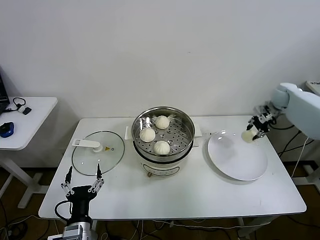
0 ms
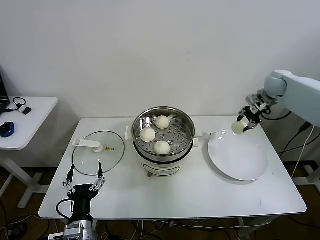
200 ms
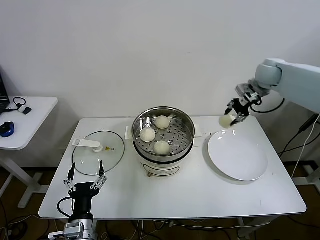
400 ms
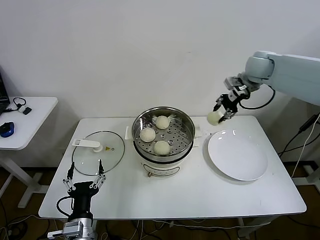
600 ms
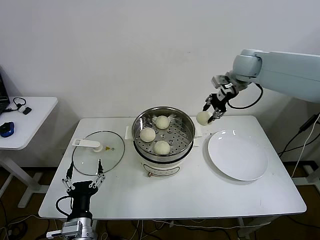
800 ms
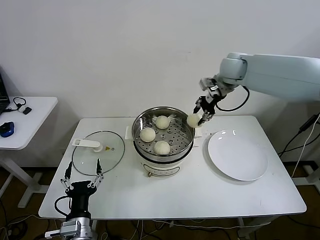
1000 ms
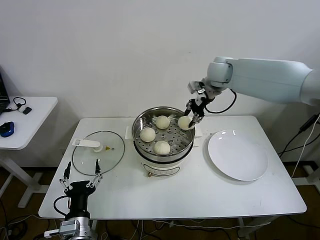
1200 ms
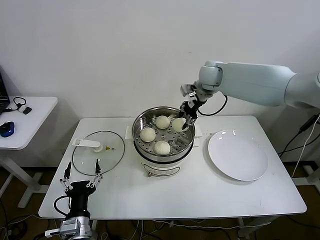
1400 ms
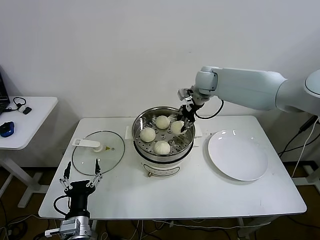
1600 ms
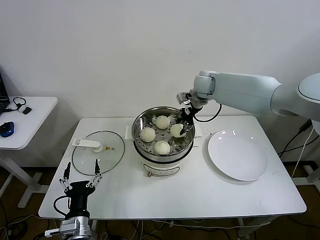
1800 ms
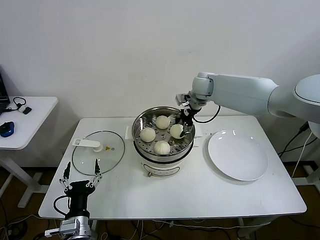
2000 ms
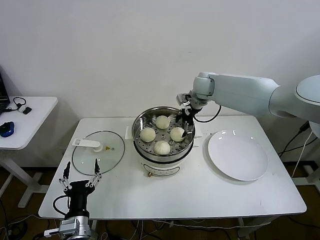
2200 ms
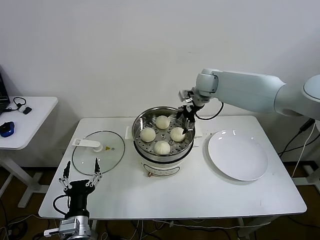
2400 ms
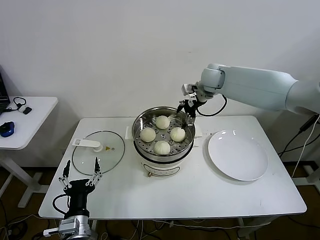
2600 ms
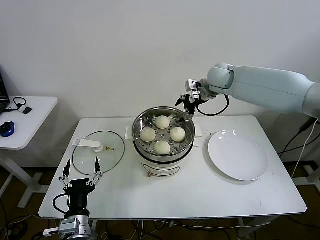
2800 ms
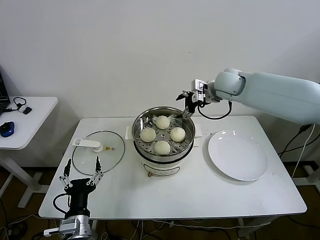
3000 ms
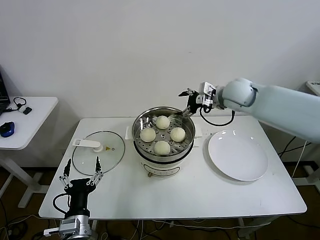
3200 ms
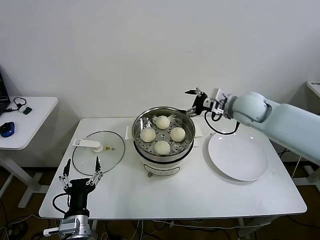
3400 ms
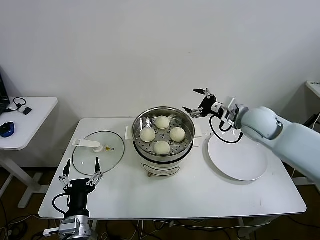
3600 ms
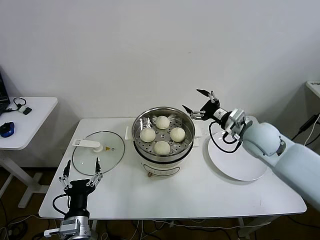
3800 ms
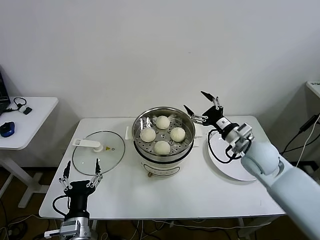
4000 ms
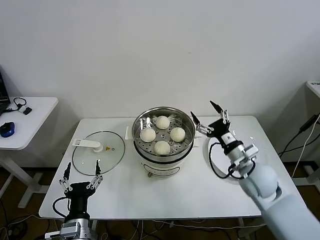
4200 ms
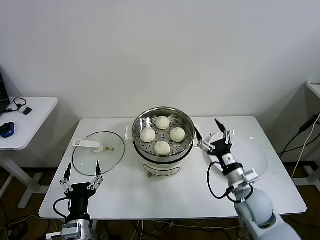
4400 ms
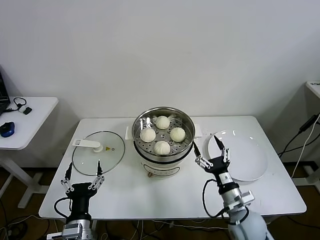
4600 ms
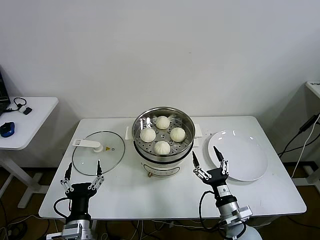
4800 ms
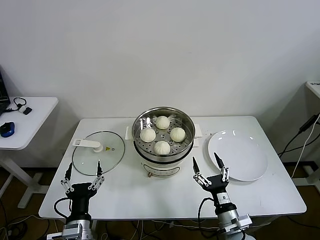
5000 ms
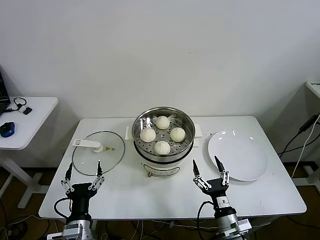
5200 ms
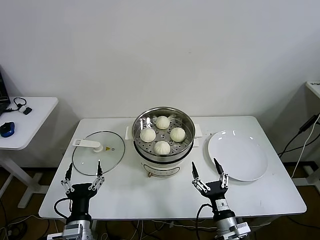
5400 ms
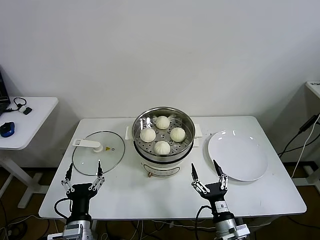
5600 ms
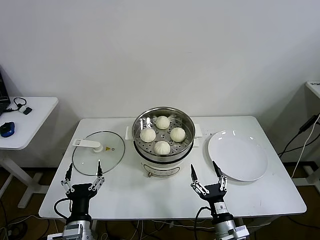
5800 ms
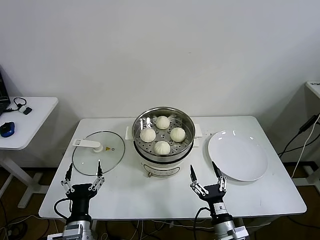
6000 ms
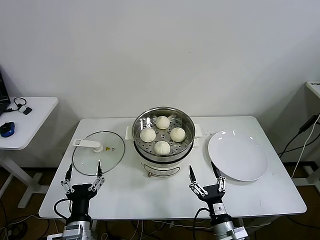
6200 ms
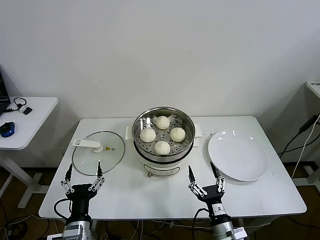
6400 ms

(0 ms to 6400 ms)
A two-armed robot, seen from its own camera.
Step, 0 ms - 2400 ms: Place the baozi on the steamer with right gripper.
0 ms - 1600 ms: The right gripper travels to the left by about 30 cm.
1600 ms - 3200 ms: The right gripper heads backward and to the right, covering some 10 cm, and opens.
3200 ms - 4800 ms: The right gripper heads backward and downward, covering roughly 40 cm.
4800 ms - 6400 ms: The right gripper moves backward, about 5 cm.

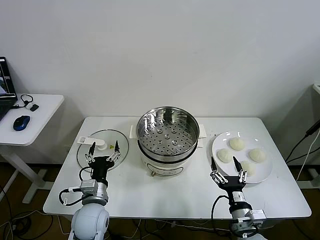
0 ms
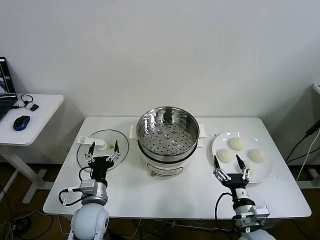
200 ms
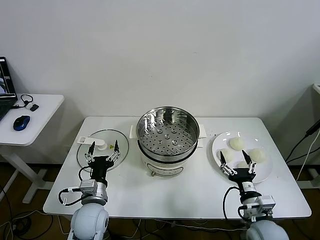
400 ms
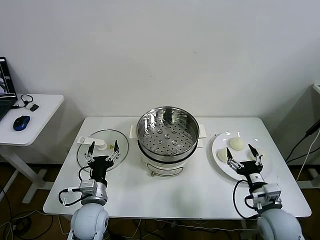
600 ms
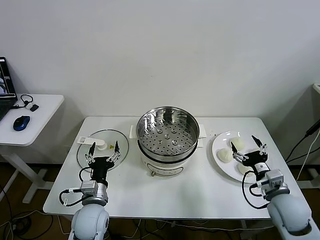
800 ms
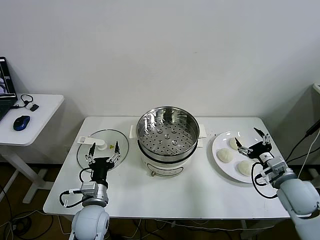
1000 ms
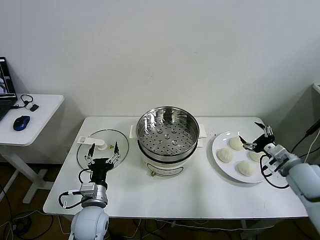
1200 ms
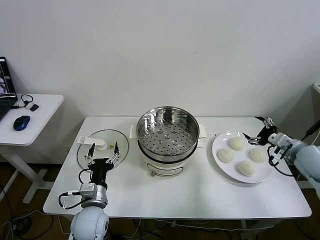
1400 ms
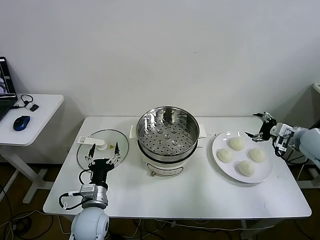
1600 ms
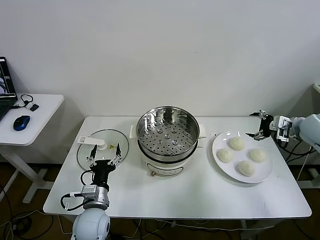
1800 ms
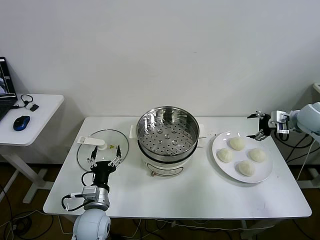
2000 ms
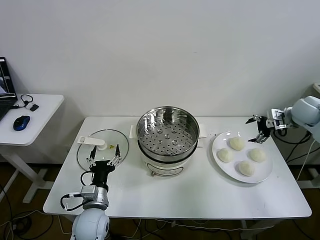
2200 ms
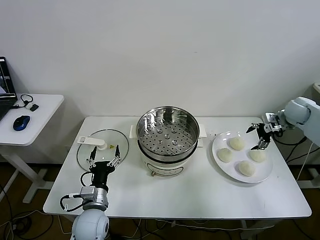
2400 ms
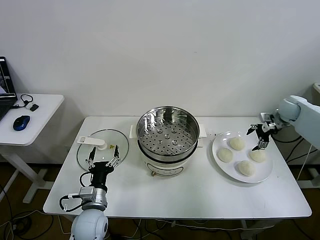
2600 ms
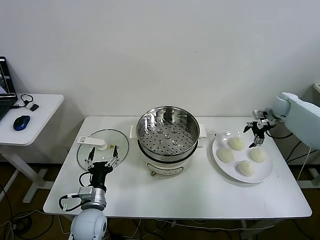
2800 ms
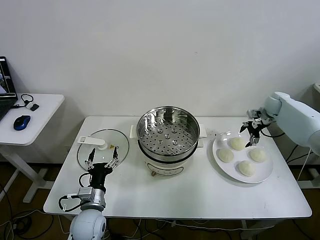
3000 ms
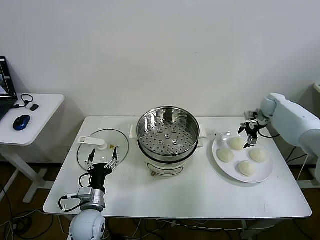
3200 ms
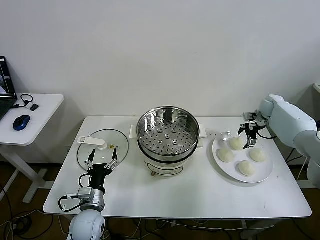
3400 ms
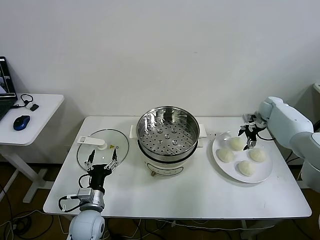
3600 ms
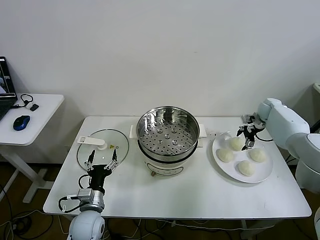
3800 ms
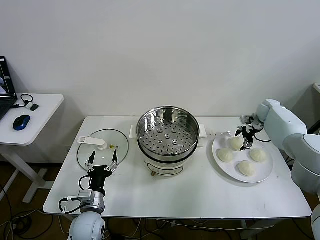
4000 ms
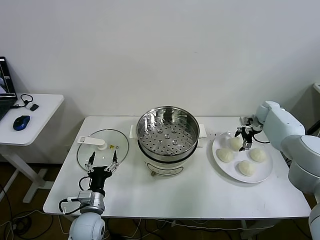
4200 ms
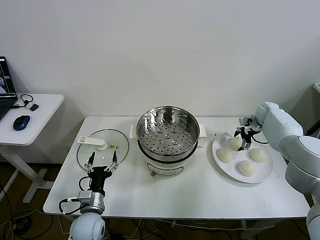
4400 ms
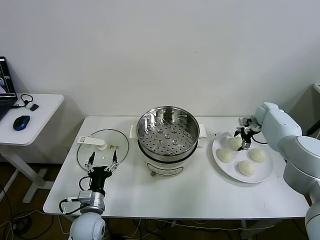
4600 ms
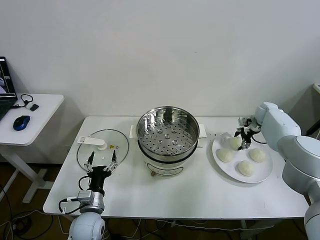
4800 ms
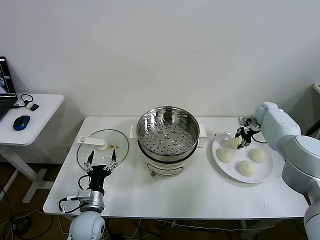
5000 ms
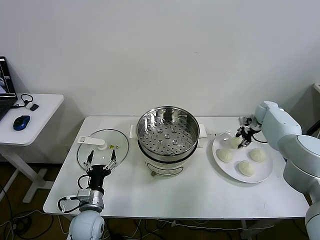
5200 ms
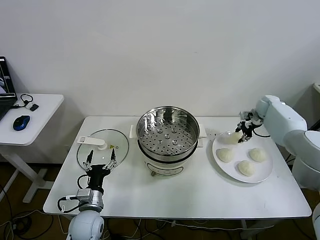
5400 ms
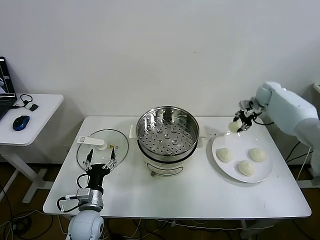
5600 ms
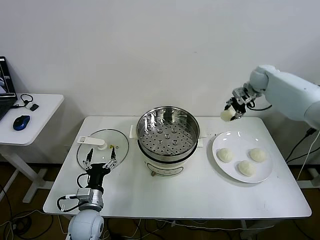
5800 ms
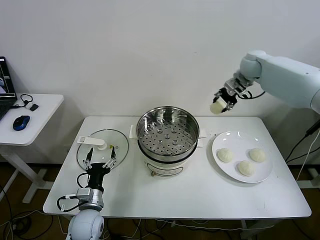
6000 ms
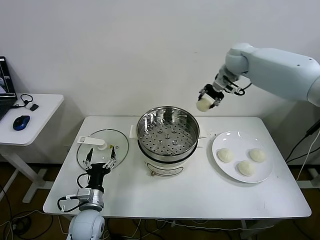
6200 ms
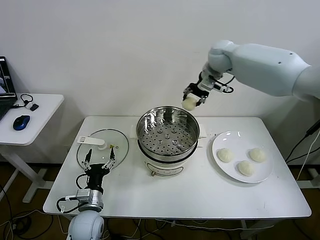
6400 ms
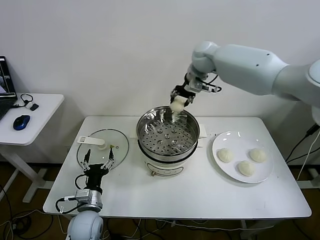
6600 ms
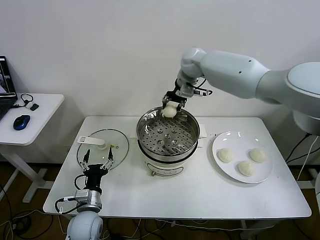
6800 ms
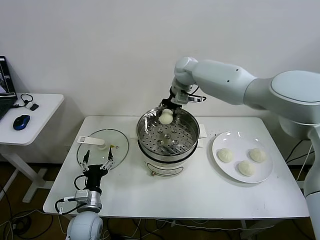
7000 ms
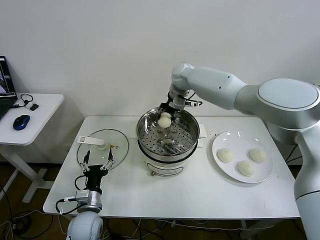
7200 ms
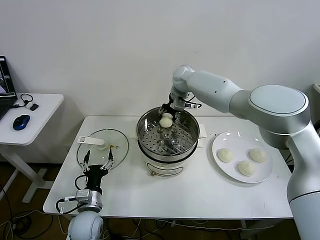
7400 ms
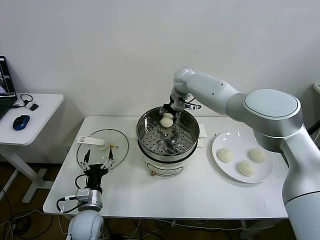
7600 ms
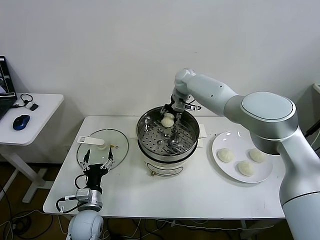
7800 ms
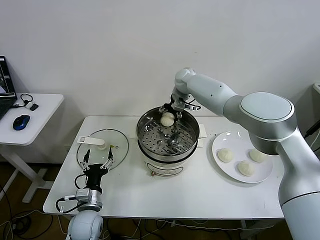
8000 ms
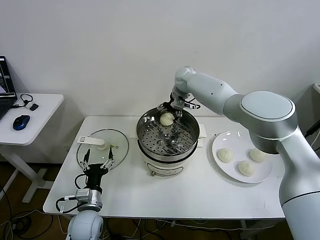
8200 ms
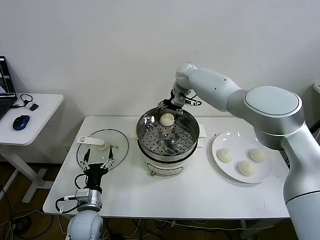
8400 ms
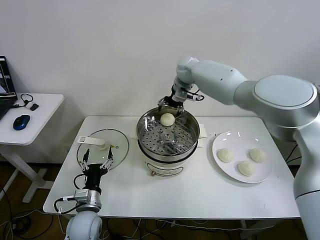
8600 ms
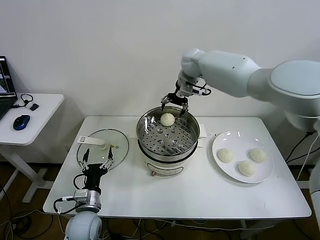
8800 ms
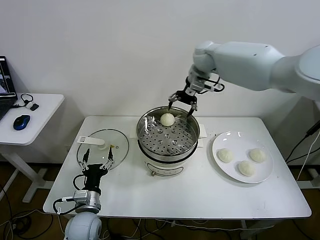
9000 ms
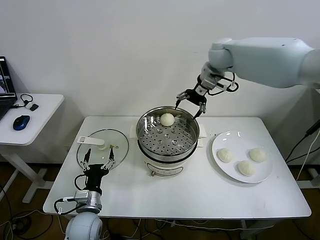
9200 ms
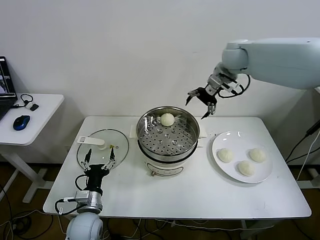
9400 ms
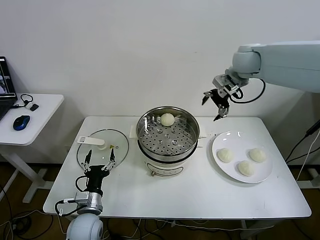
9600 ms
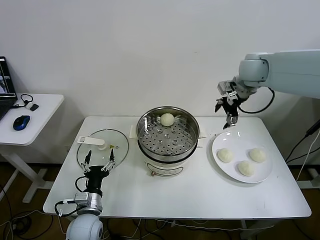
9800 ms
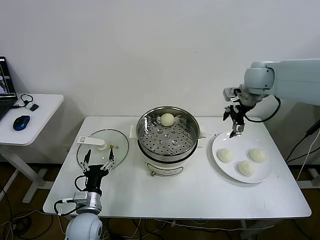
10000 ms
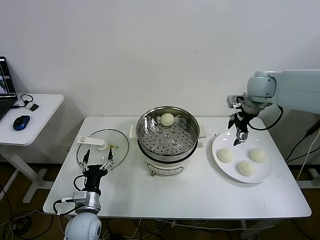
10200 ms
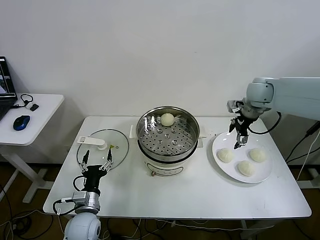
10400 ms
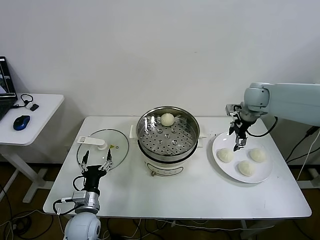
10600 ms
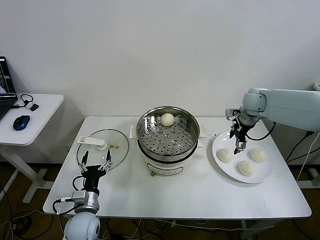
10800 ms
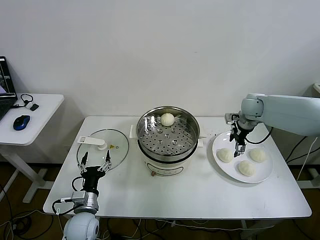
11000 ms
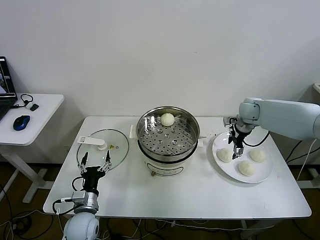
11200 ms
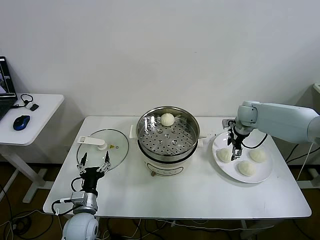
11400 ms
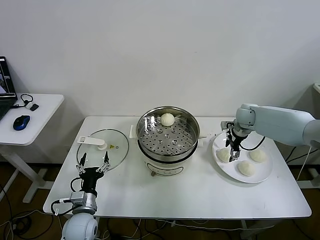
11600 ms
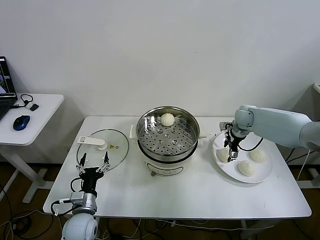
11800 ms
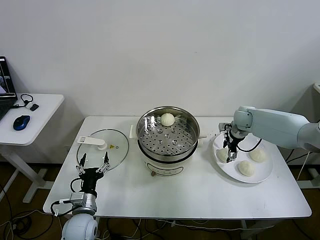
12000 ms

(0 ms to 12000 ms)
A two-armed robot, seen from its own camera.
Step, 0 ms - 5000 ms: Grasp the baozi in the plate with right gripper.
Step, 5200 ms - 8400 ms: Place the baozi on the steamer with right gripper.
1600 ms - 3000 ms: The right gripper travels forward by approximately 20 cm.
3000 ms - 4400 ms: The right gripper goes some 5 cm downward.
4400 ms - 6000 ms: The right gripper moves upward and to the left, roughly 30 cm, and closes.
6000 ms - 7600 ms: The right gripper goes some 20 cm to the left and downward.
7600 ms - 9000 ms: The right gripper heads upward and to the right, covering approximately 15 cm, and opens.
9000 ms - 10400 ms: The right gripper moves to the right, downward and backward, some 20 cm.
10400 ms - 12000 ms: The right gripper moves downward, roughly 15 cm.

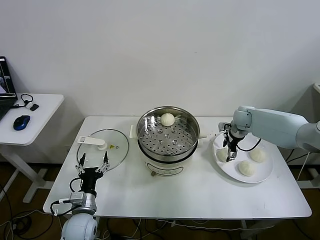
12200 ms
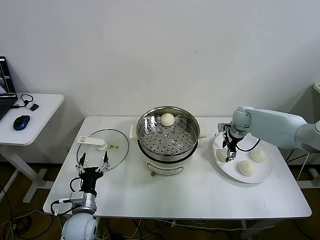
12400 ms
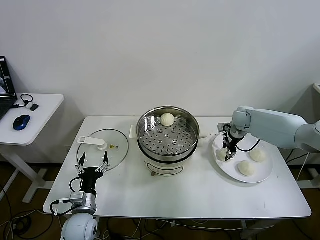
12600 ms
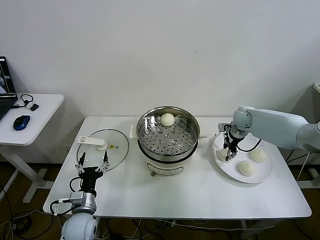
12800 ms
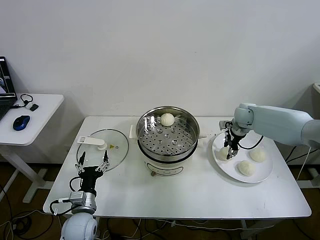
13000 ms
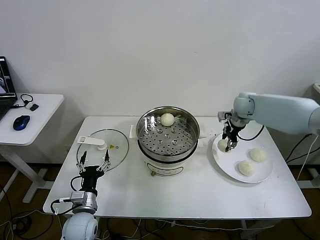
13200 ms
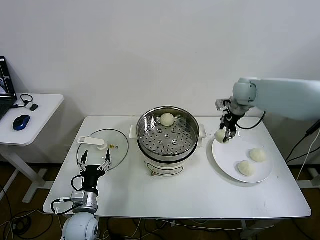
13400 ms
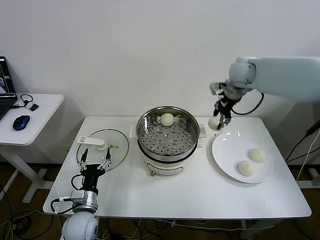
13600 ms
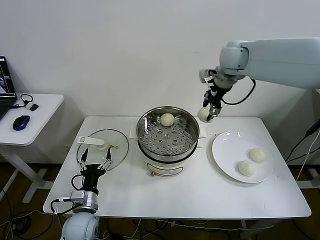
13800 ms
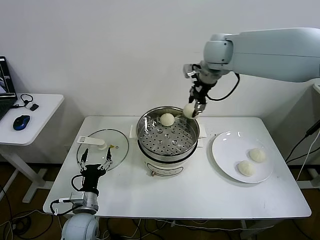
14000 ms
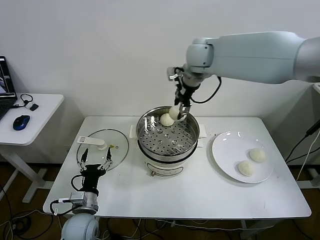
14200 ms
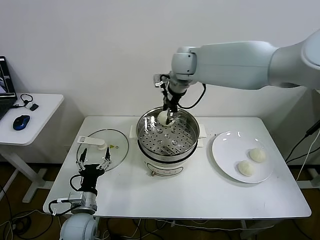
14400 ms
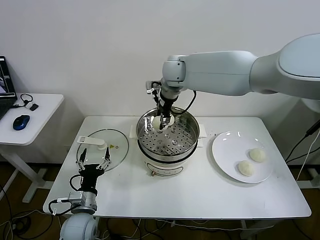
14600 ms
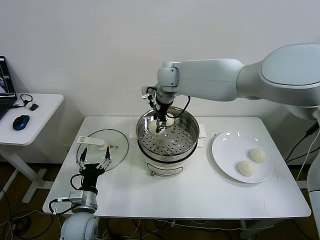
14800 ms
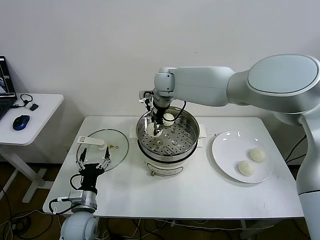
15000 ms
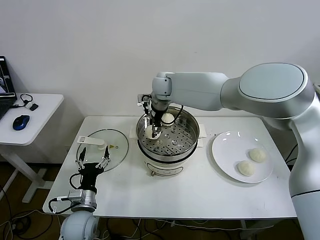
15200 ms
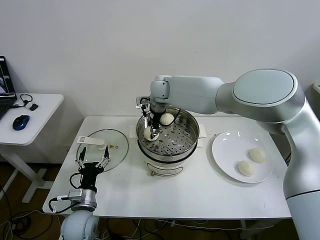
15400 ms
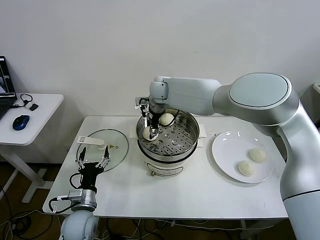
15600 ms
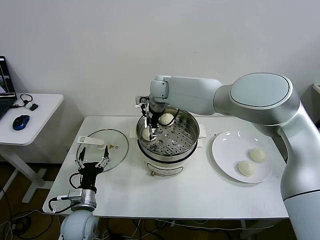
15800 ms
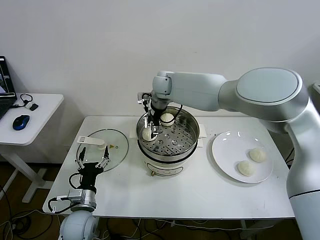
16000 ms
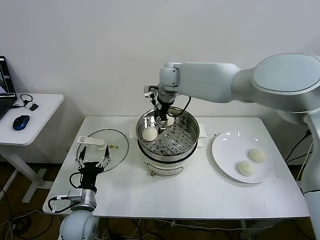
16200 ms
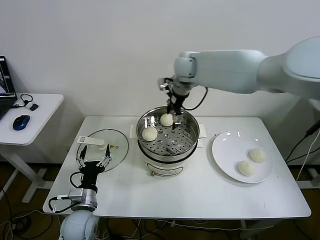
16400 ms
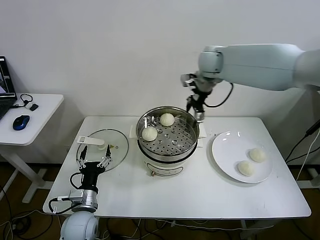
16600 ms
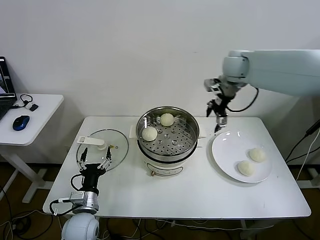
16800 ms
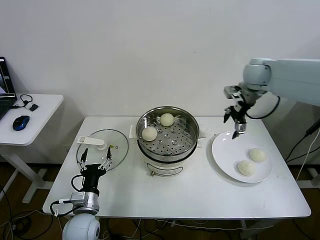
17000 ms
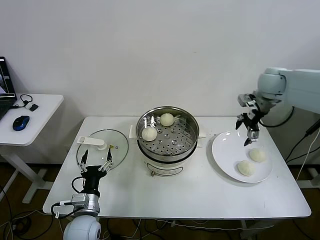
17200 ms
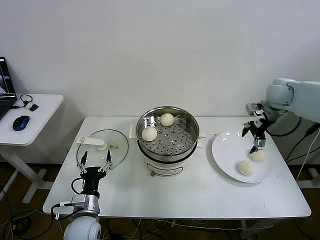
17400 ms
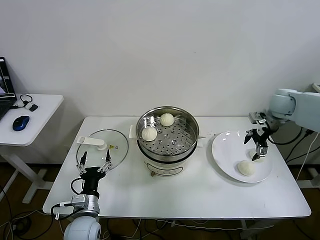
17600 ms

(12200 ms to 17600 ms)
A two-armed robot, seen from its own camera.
Step, 13000 ms - 15800 ms: Place the baozi on the steamer with right gripper.
12200 ms - 13600 ms: The right gripper shifts roughly 25 cm upward, and closes its fingers.
13600 ms - 15000 ms: The right gripper travels to the left by roughly 25 cm.
15000 ms - 16200 ms: The right gripper opens.
16200 ms - 17600 ms: The right gripper shifts some 35 cm to the right.
